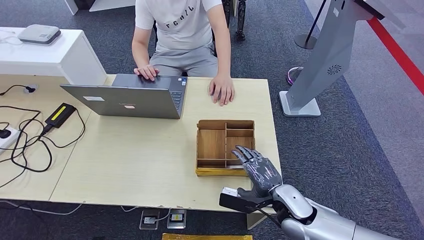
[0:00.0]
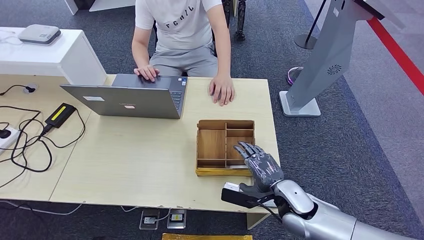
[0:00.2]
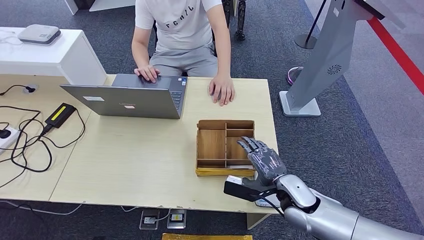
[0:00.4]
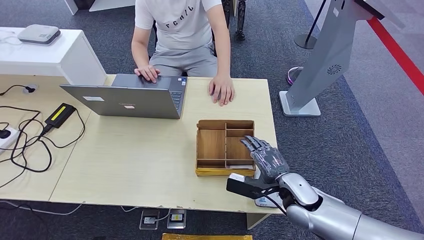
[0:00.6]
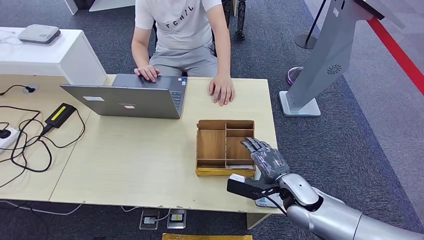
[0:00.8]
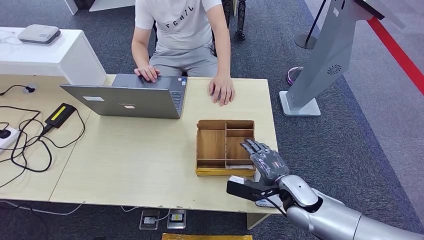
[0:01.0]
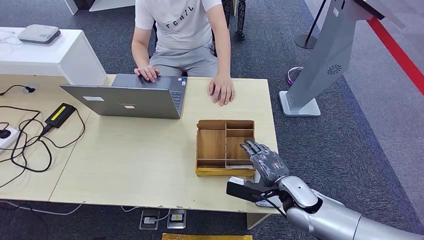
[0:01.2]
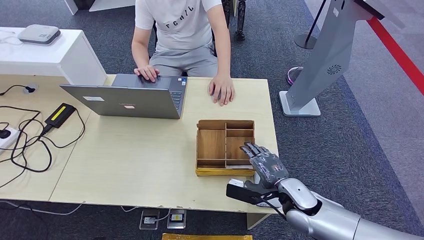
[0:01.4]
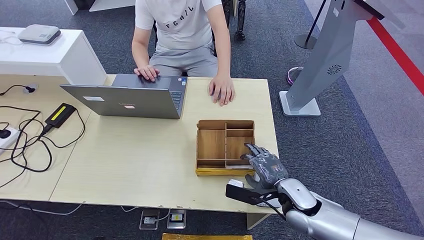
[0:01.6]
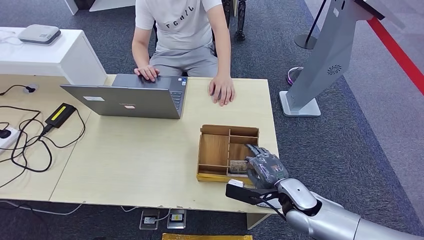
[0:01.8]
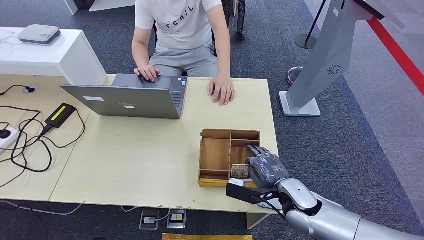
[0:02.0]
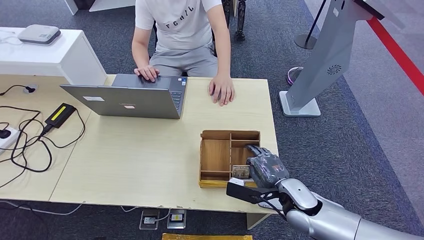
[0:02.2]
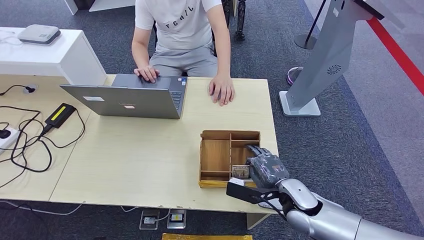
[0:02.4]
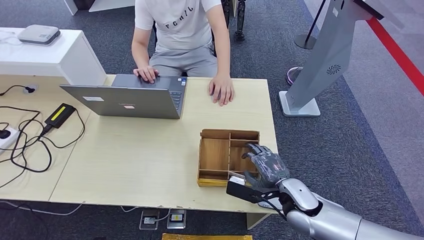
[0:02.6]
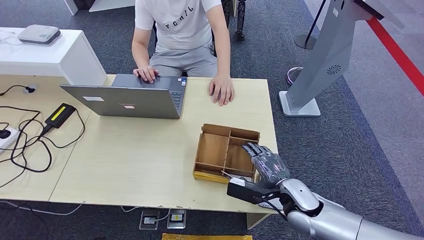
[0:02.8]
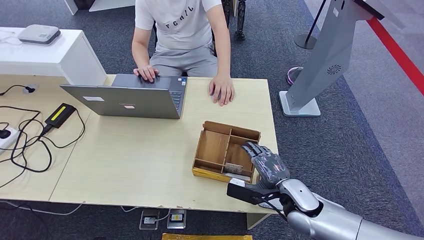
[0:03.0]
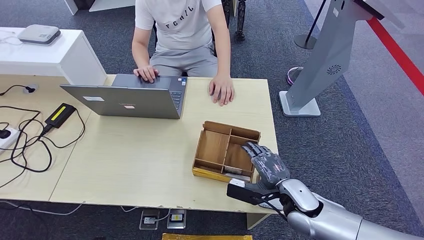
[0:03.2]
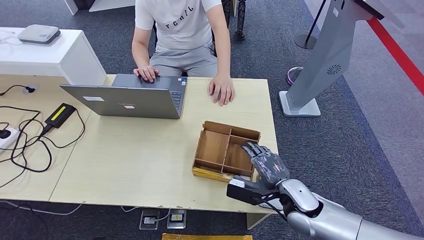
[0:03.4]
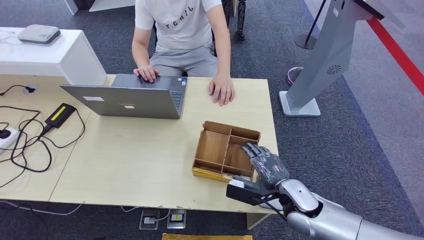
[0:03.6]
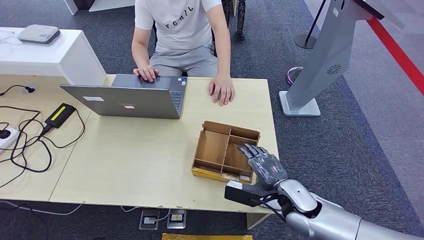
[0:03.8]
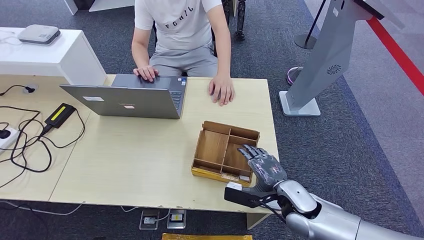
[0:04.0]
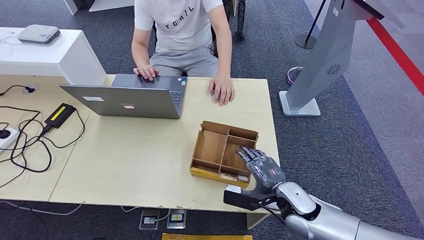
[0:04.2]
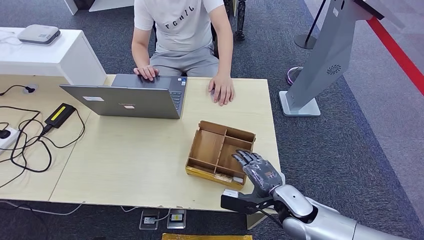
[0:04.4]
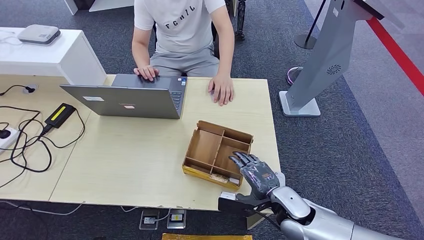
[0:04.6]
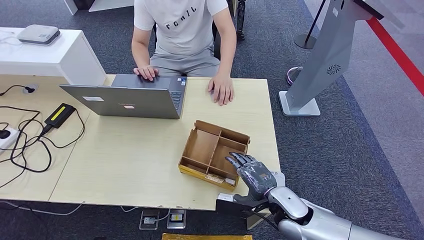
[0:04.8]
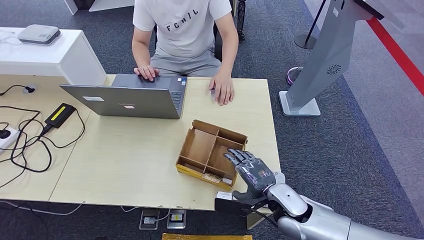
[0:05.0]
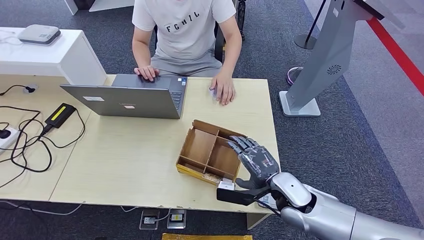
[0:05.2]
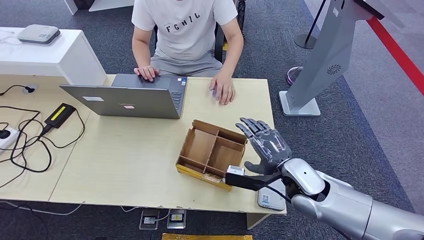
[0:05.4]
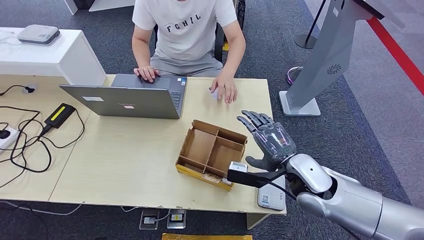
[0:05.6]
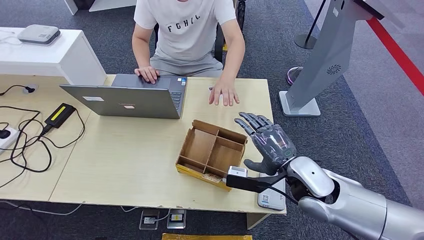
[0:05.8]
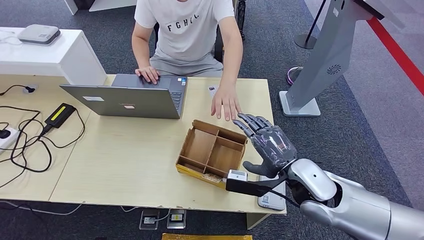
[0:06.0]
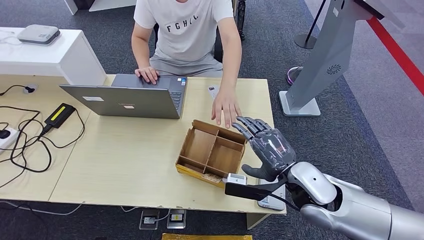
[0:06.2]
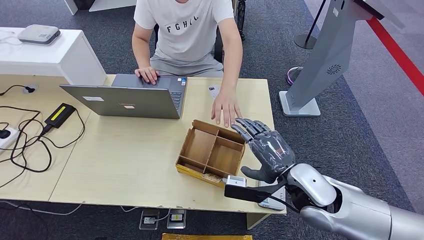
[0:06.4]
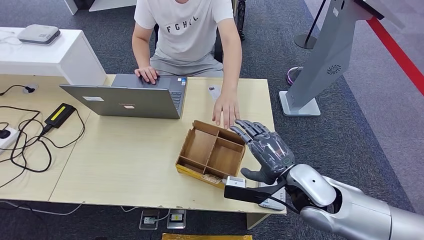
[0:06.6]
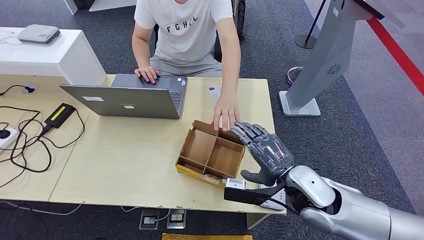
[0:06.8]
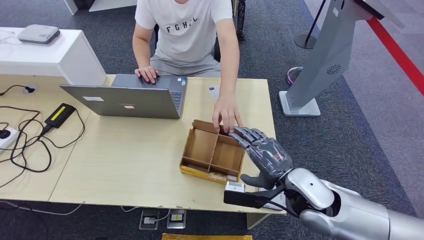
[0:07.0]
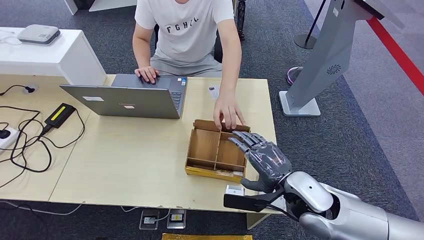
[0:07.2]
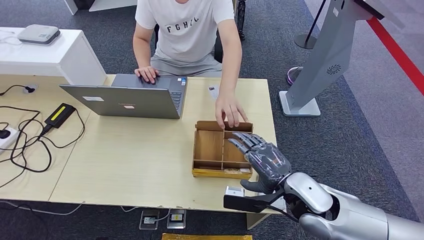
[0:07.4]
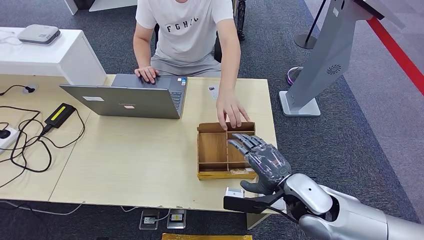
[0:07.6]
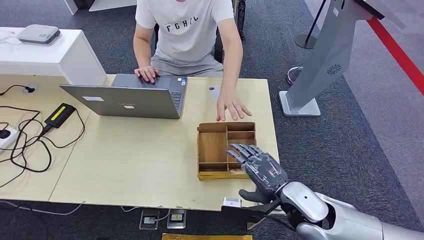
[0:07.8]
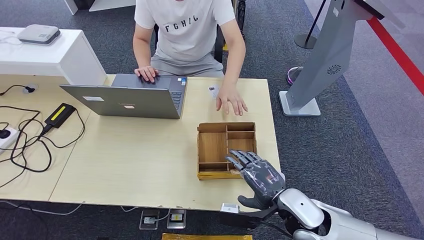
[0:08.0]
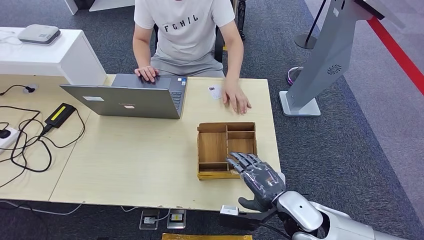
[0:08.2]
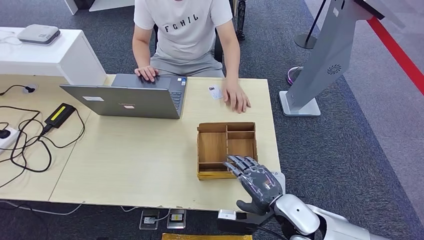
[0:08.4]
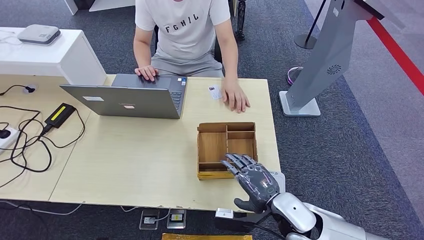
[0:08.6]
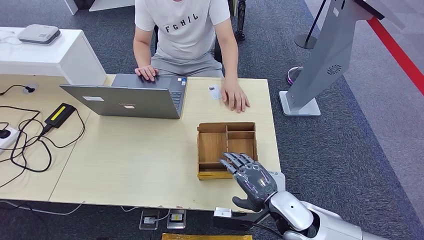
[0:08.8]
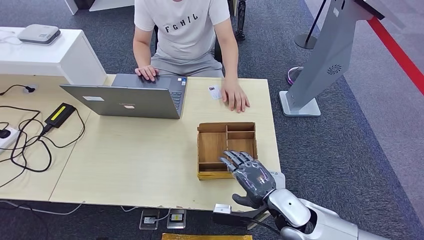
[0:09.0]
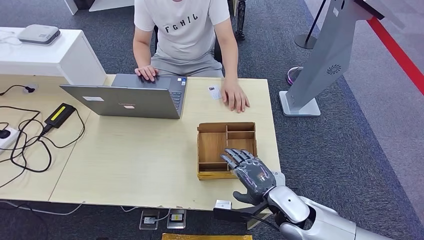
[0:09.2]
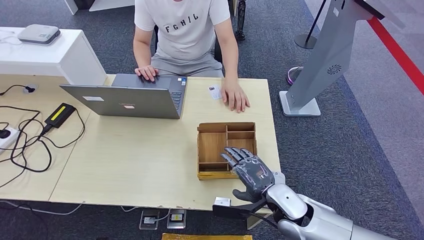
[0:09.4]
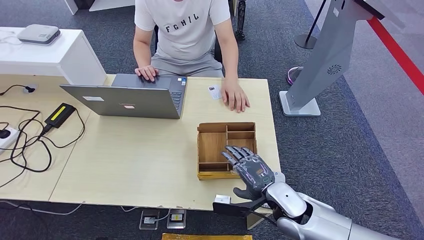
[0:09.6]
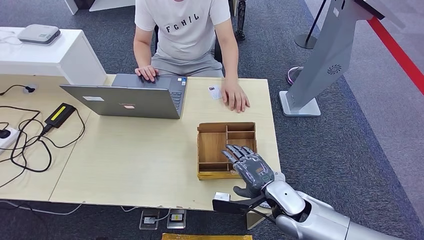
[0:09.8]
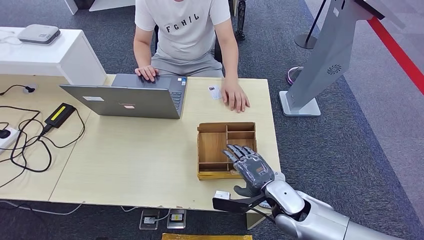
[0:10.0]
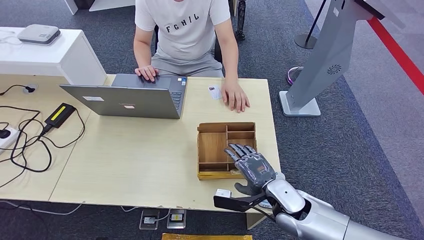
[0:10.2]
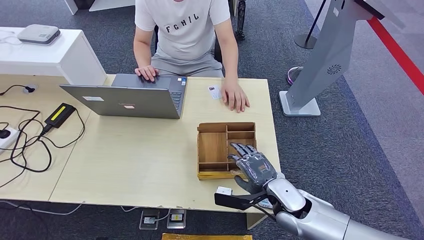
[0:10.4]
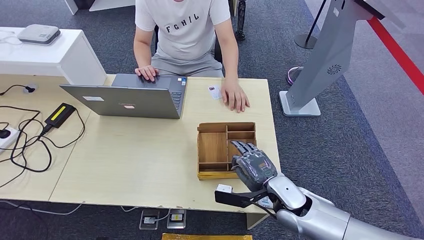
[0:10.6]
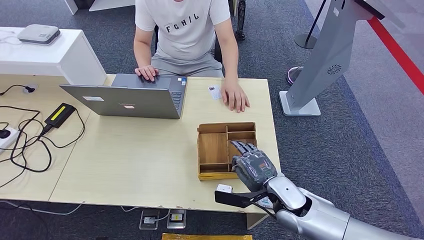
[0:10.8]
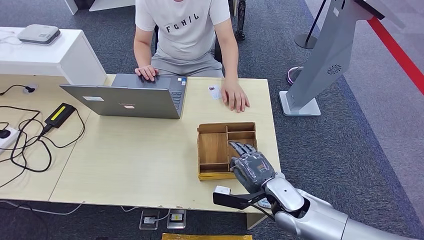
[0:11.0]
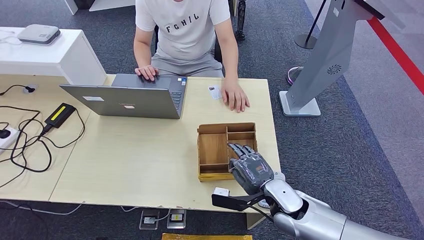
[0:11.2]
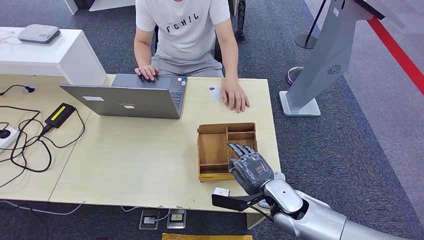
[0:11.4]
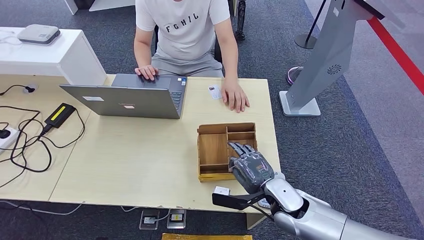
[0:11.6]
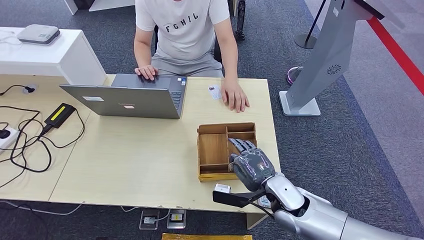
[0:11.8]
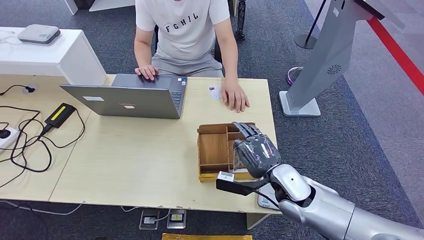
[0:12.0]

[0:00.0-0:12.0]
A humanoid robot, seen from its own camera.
0:00.0 to 0:01.6: There are only small adjustments of the hands.
0:01.6 to 0:03.0: Neither hand changes place.
0:03.0 to 0:04.4: There are only small adjustments of the hands.
0:04.4 to 0:06.0: The right hand travels upward by approximately 10 cm.
0:06.0 to 0:07.6: The hands make only small movements.
0:07.6 to 0:09.0: The right hand shifts approximately 5 cm downward.
0:09.0 to 0:12.0: The hands make only small movements.

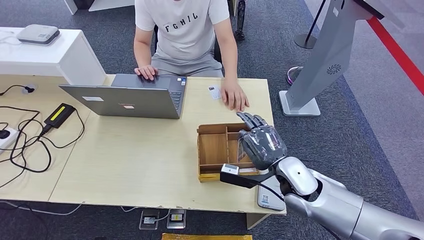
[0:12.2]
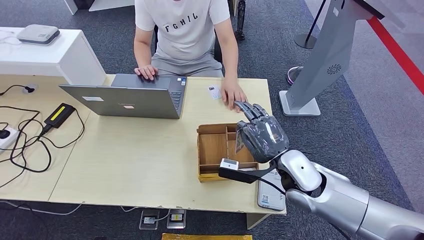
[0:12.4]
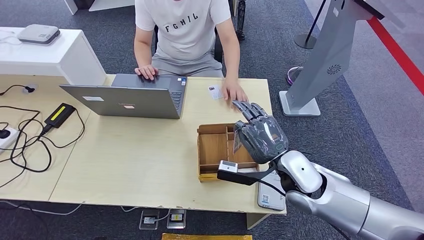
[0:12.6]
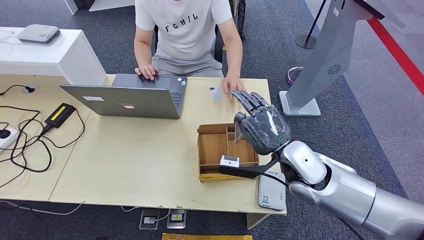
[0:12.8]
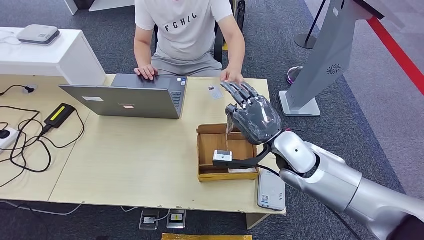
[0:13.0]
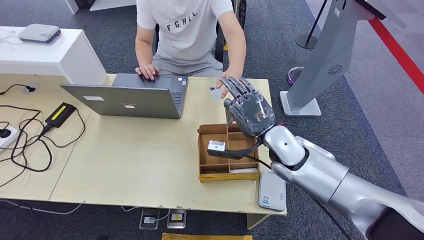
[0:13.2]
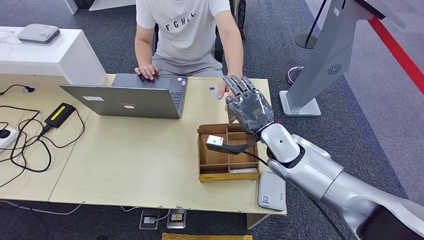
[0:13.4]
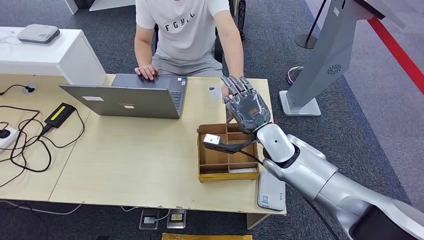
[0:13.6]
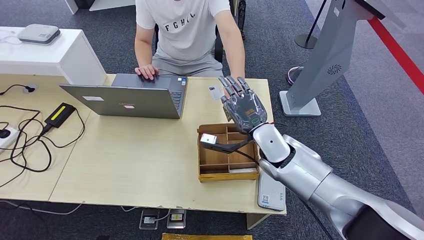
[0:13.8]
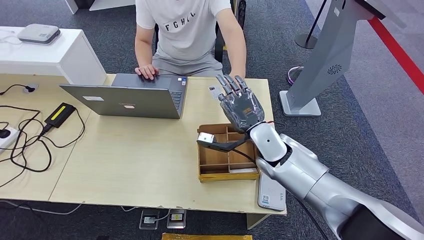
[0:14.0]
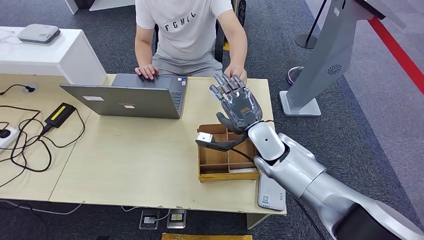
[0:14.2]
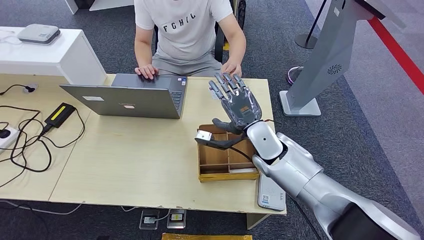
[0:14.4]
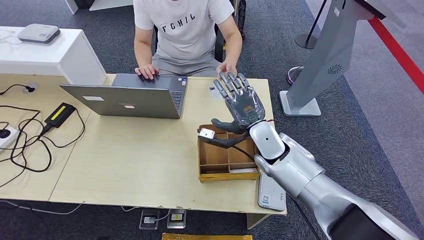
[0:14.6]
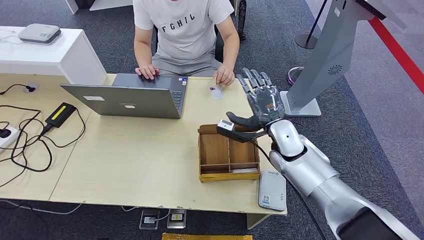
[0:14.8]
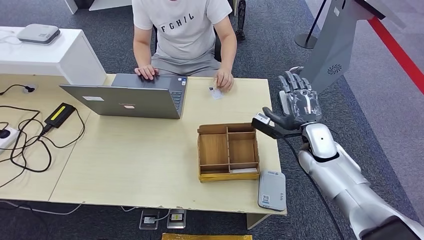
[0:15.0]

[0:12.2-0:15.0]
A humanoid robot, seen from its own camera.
Step, 0:13.2 to 0:15.0: Hand the room key to the person.
0:12.2 to 0:13.6: The right hand shifts roughly 5 cm forward.
0:13.6 to 0:15.0: The right hand is displaced to the right by roughly 10 cm.
